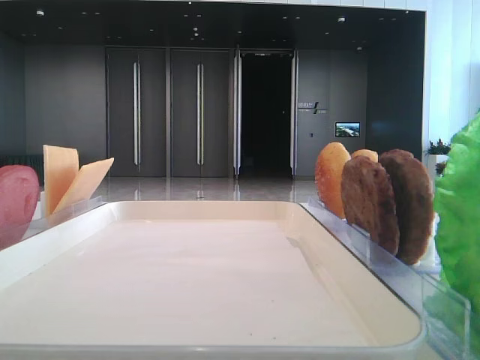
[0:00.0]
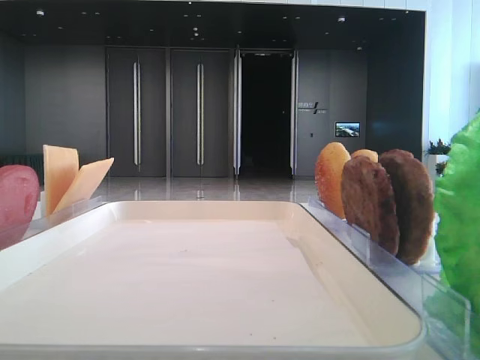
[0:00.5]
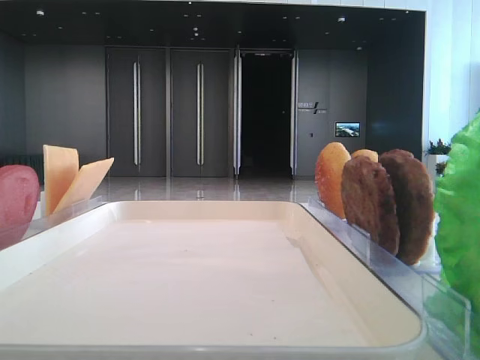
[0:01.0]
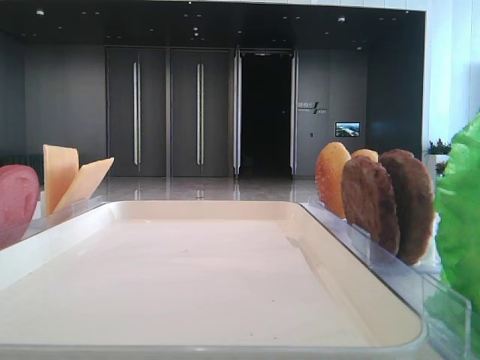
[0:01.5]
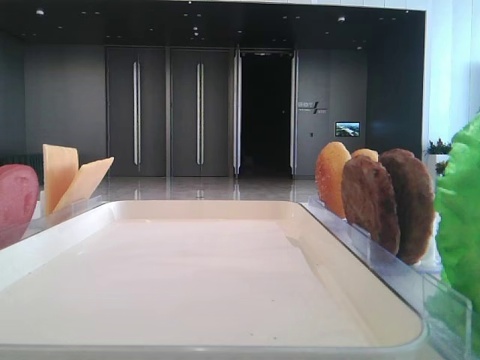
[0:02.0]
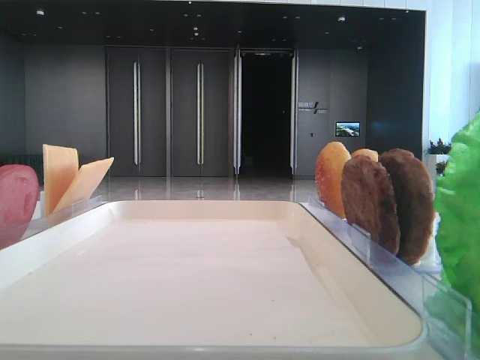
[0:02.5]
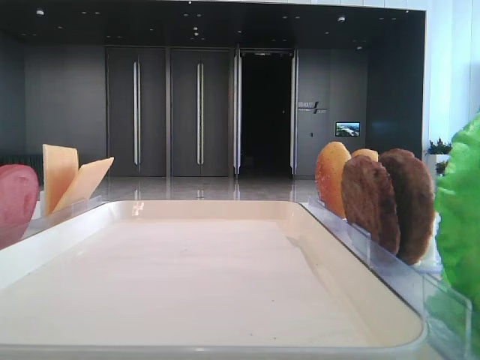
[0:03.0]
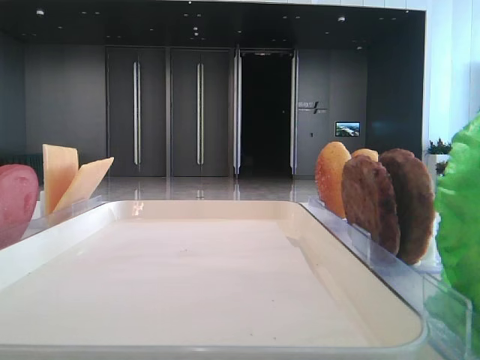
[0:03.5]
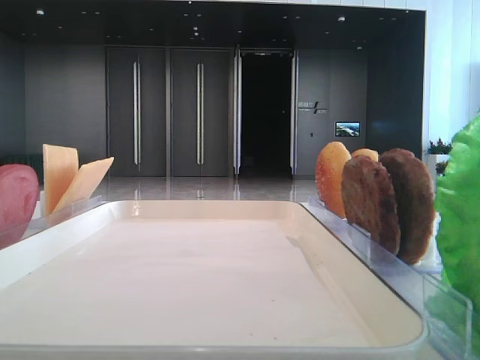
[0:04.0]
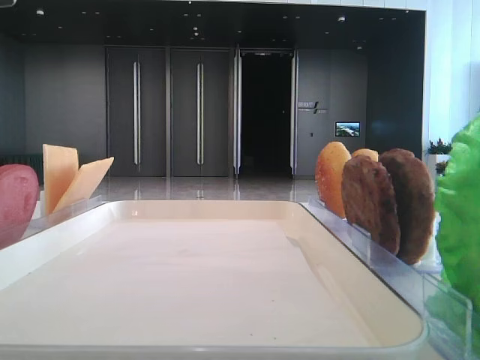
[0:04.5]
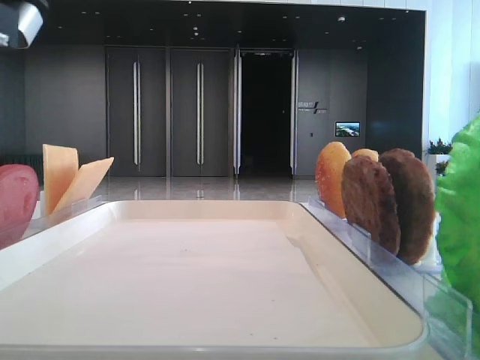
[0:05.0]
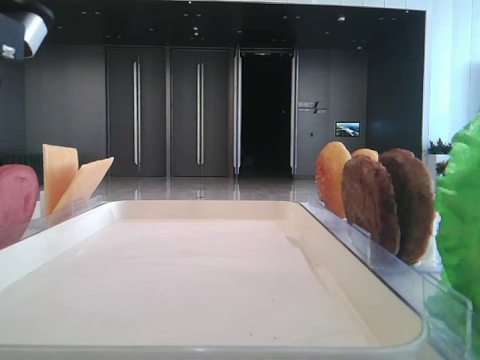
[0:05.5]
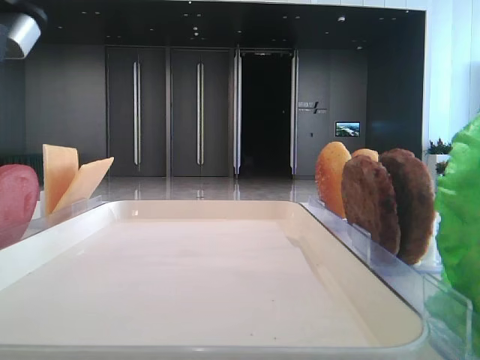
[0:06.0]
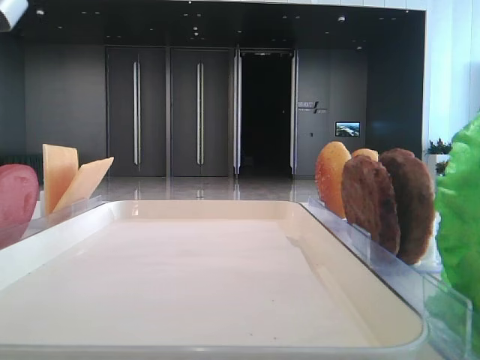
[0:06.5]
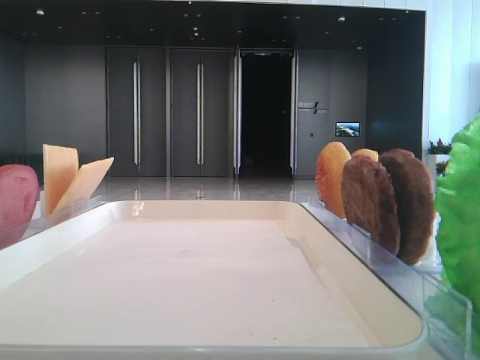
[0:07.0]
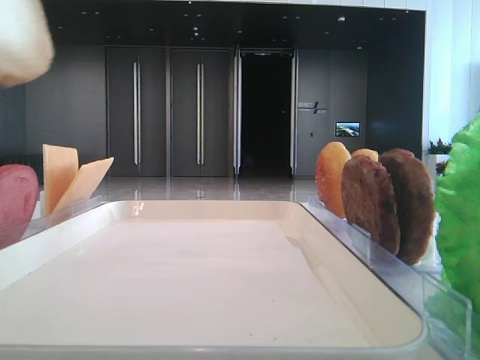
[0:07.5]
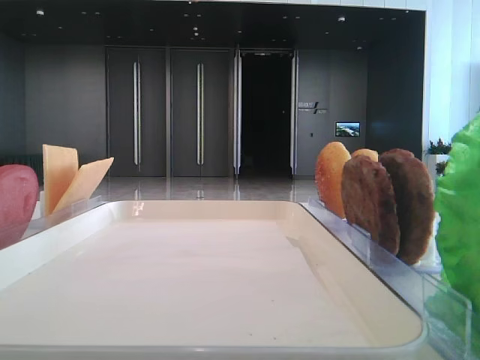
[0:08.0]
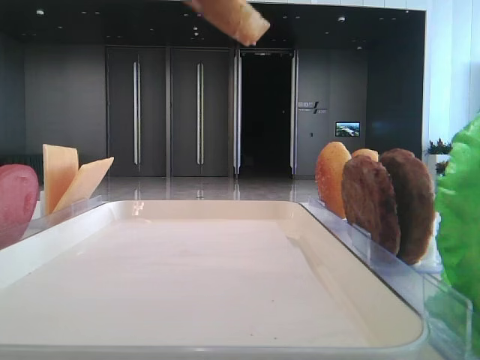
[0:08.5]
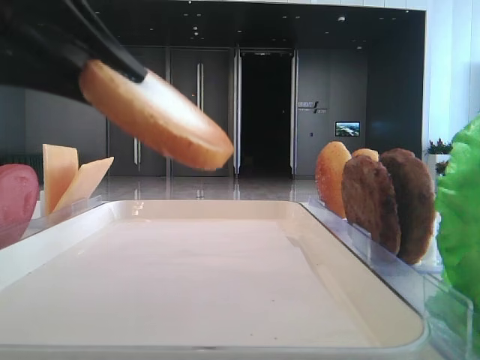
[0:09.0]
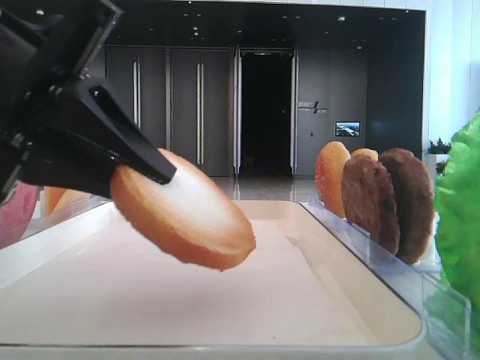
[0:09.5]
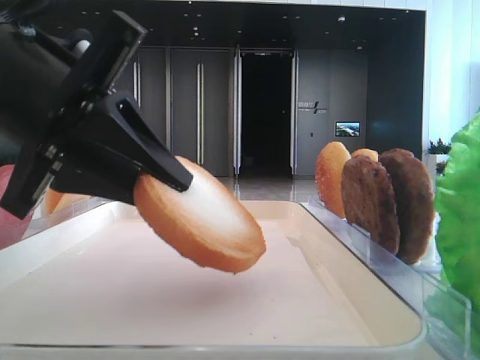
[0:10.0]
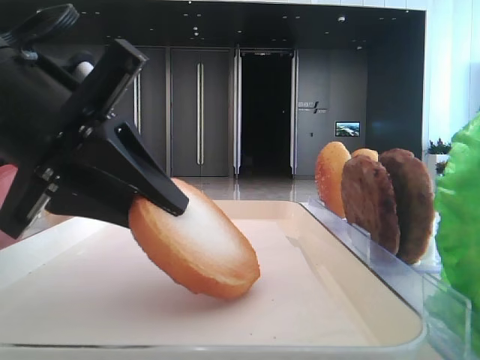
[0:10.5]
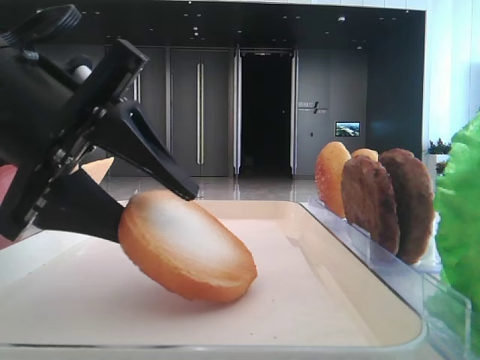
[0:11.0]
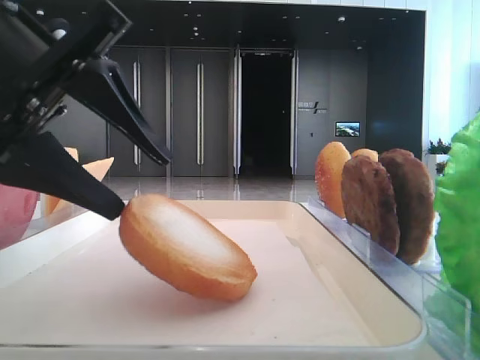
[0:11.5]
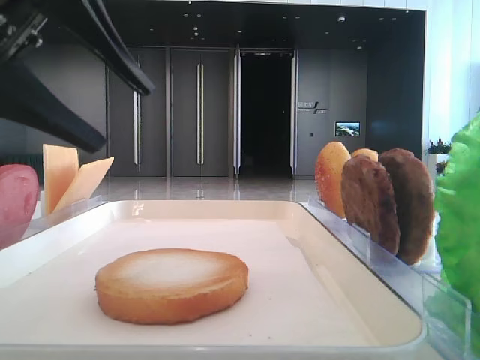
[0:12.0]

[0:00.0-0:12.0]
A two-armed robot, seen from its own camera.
Step, 0:00.0 to 0:06.0: Pick up the bottom bread with the left hand.
Step, 0:06.5 to 0:11.5: Place the bread on the tray with the left hand.
0:04.0 to 0:06.0: The left gripper moves downward, approximately 5 cm, and closes.
0:06.0 to 0:08.0: The left gripper moves upward, some 10 cm.
0:08.0 to 0:10.0: The left gripper travels downward by approximately 20 cm.
0:10.0 to 0:12.0: The left gripper is displaced upward by about 5 cm, and opens up.

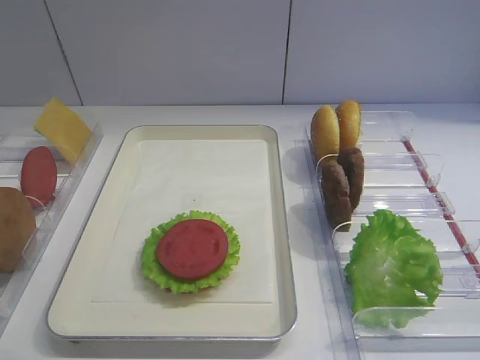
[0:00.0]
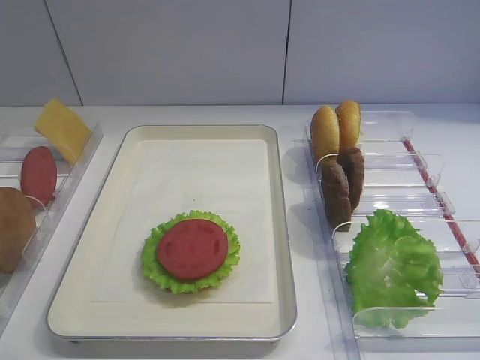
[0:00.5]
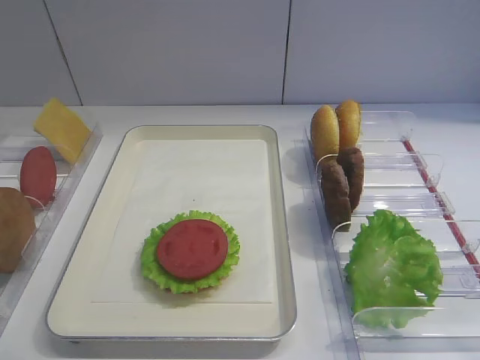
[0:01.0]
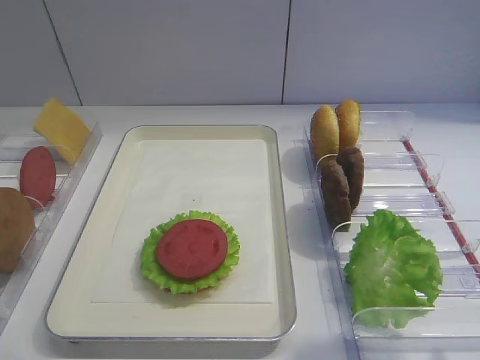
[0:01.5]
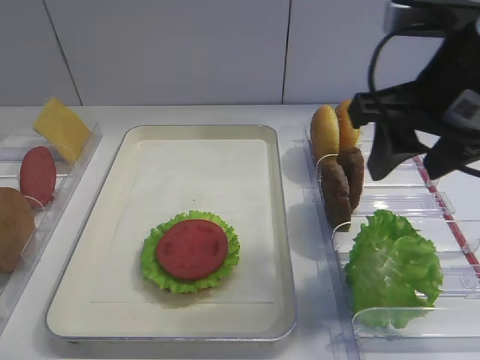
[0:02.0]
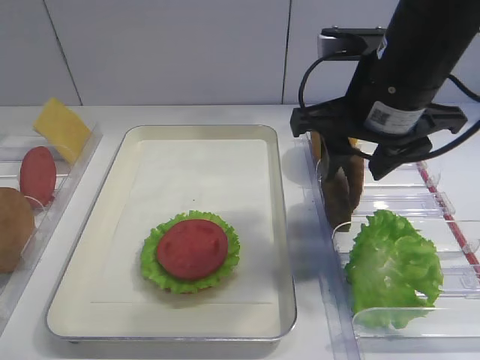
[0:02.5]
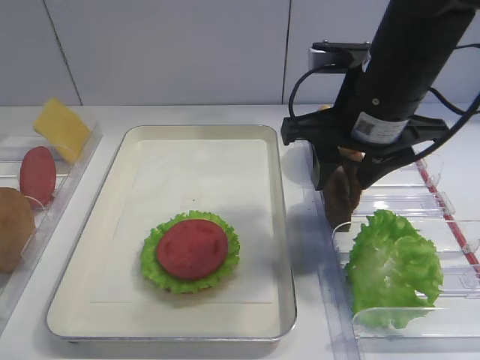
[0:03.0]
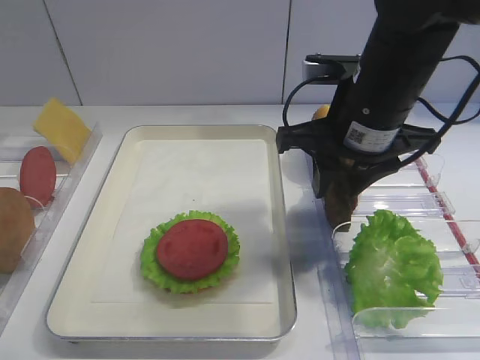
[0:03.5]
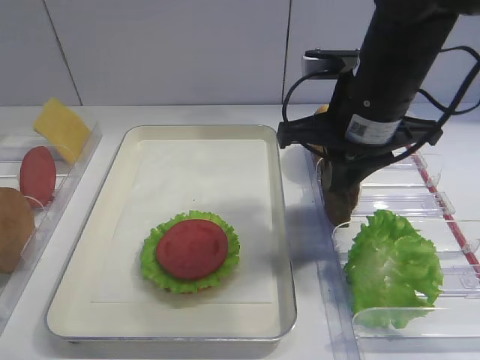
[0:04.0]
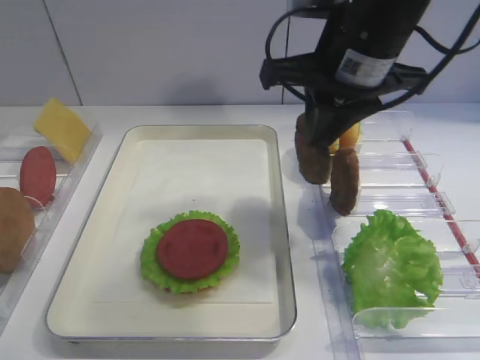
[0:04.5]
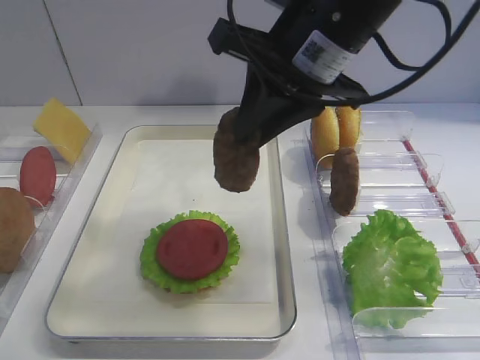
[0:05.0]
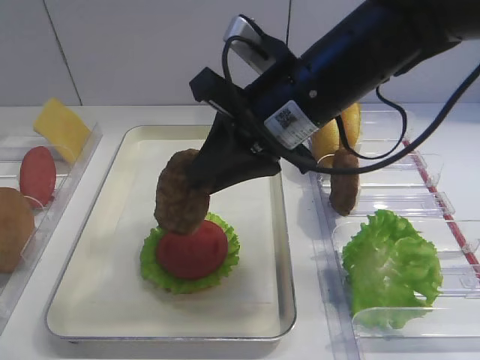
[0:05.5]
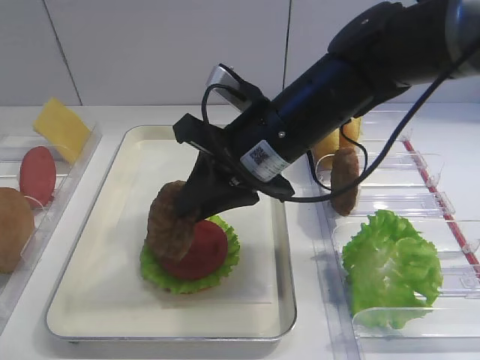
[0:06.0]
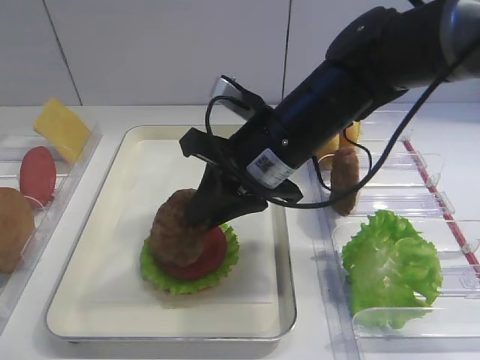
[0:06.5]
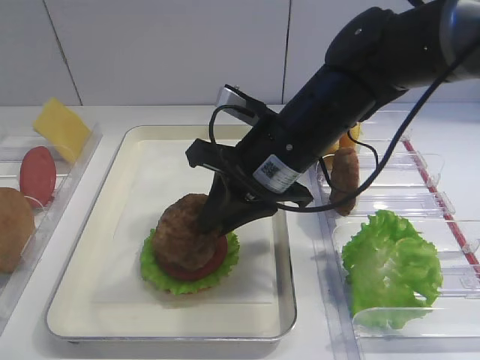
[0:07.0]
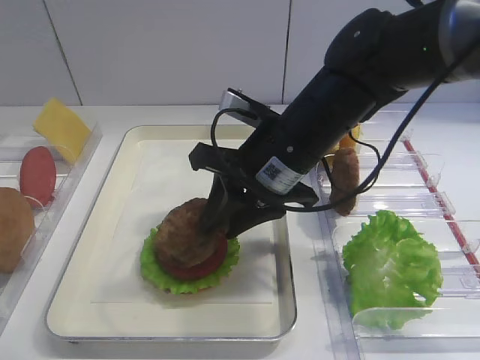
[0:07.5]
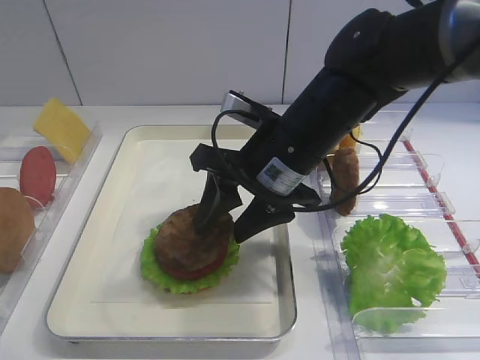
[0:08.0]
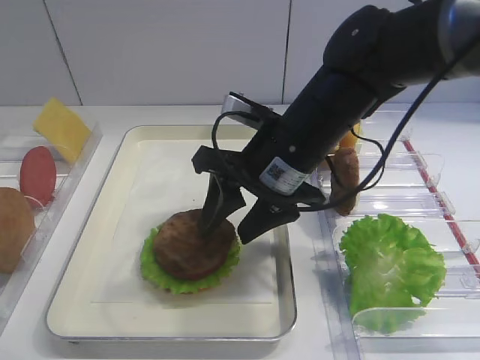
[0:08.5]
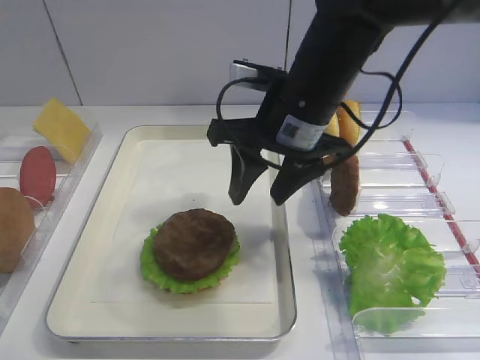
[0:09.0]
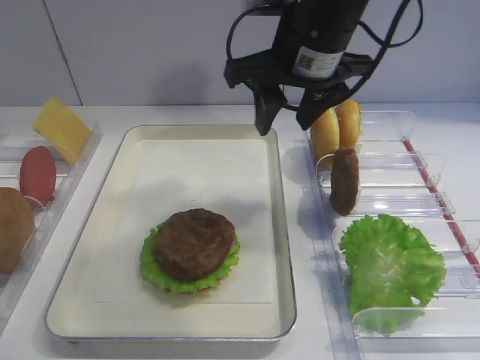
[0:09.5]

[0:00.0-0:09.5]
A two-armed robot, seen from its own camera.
Step, 0:00.0 to 0:04.0: Pick up the cutlet with the right gripper.
Step, 0:04.5 to 0:08.5: Place the cutlet on the tomato slice with the right gripper.
0:02.0 to 0:04.0: The right gripper shifts approximately 10 cm forward and downward, and closes up.
0:04.0 to 0:05.5: The right gripper goes some 5 cm to the left.
0:05.5 to 0:07.5: The right gripper moves downward, approximately 5 cm, and opens up.
0:07.5 to 0:09.5: The right gripper is displaced upward by some 10 cm, and opens.

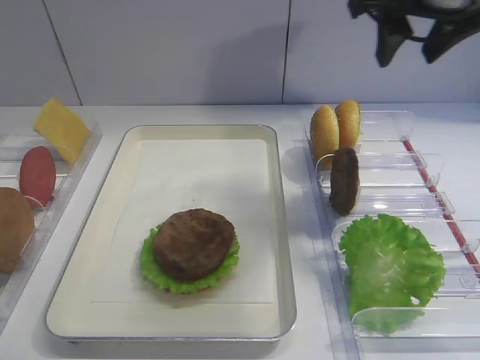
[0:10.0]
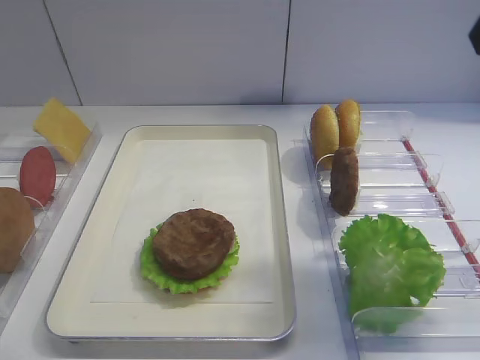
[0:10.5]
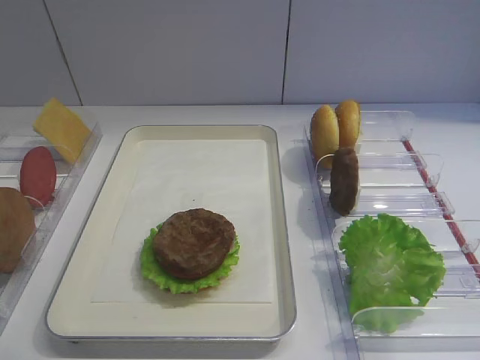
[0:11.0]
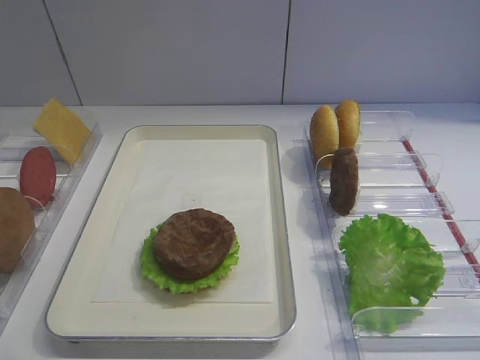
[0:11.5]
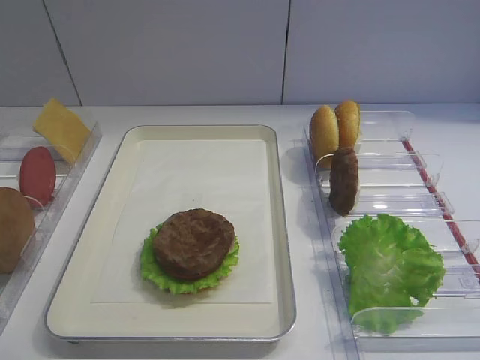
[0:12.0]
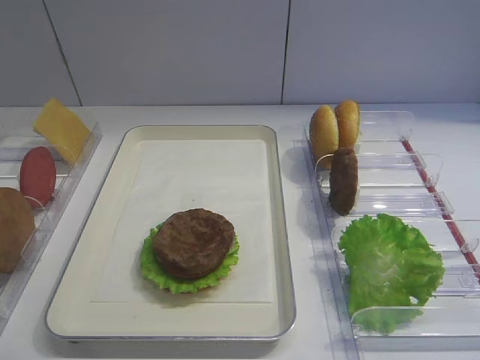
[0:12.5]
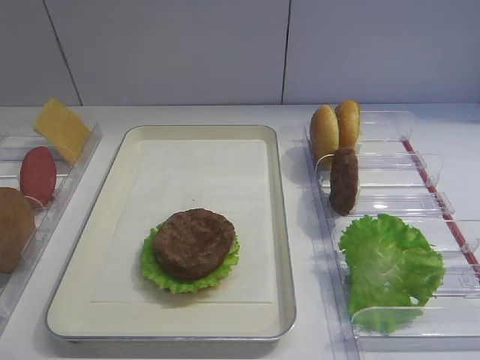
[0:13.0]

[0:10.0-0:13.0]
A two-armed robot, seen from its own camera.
0:10.0 to 0:11.5: The right gripper moves backward, some 35 cm.

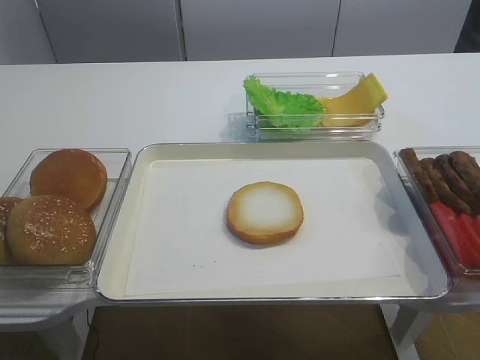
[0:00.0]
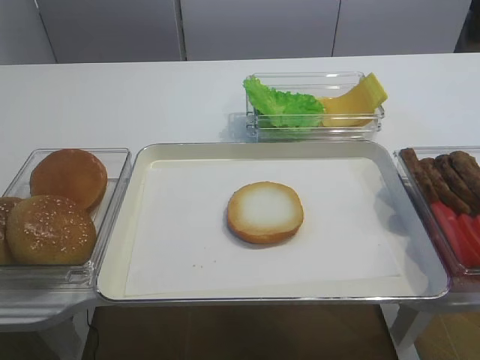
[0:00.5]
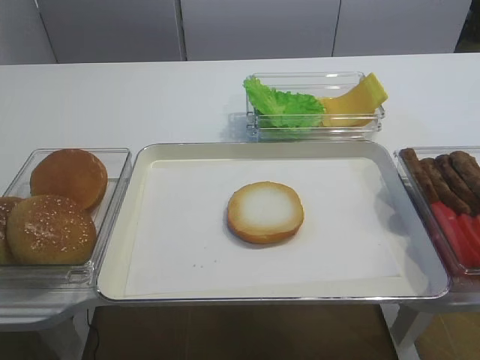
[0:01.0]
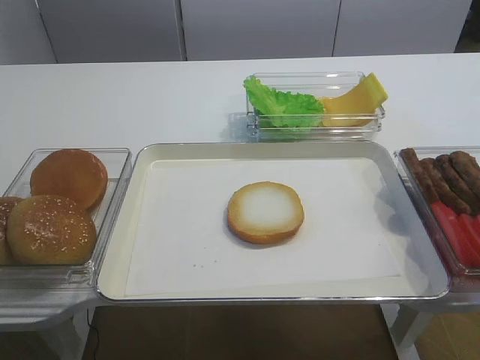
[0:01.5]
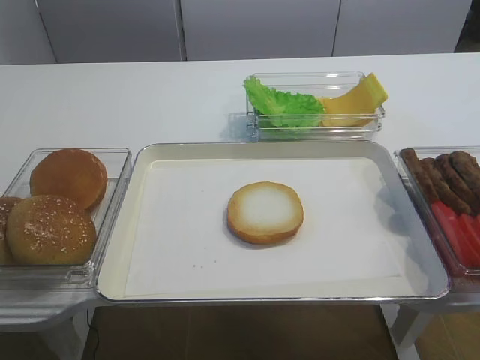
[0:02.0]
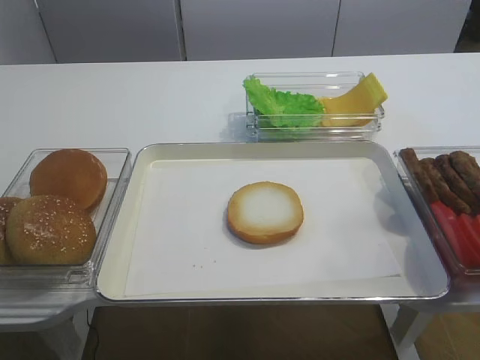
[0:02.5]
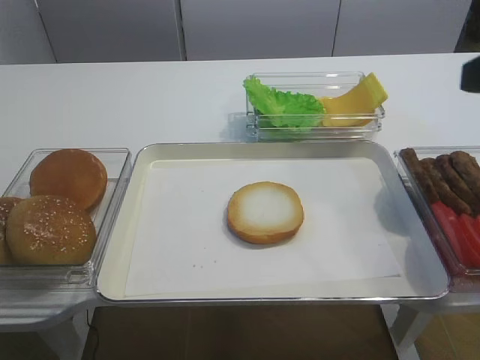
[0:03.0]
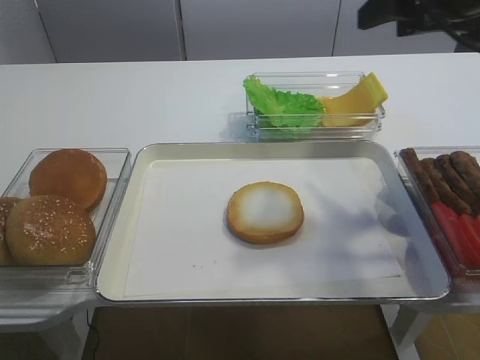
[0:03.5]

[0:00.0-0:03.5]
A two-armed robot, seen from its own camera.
0:02.0 to 0:03.5: The right gripper is displaced forward by approximately 30 cm.
